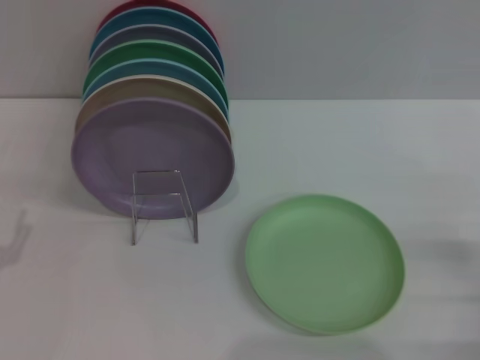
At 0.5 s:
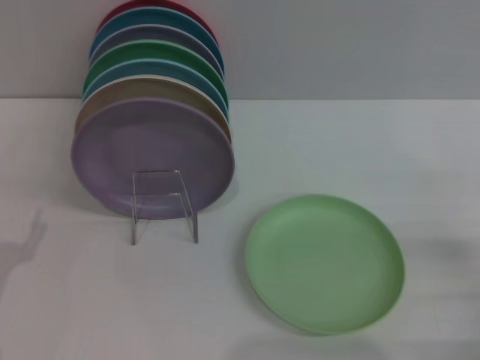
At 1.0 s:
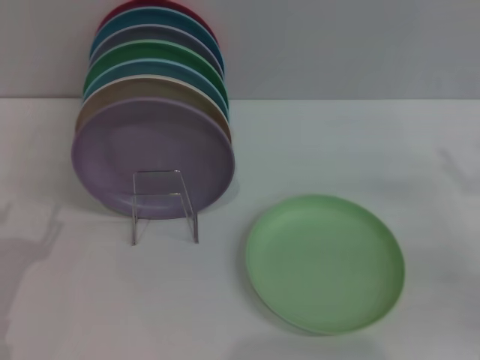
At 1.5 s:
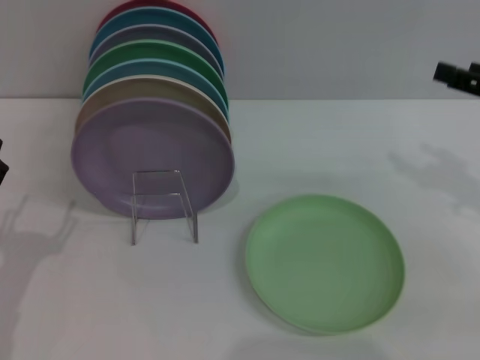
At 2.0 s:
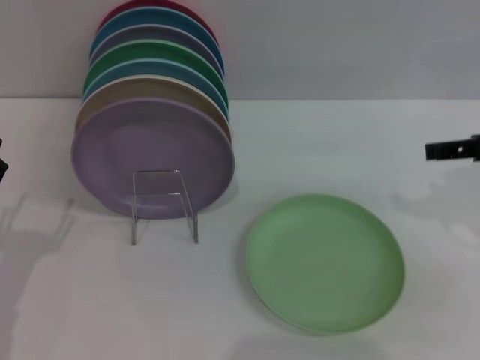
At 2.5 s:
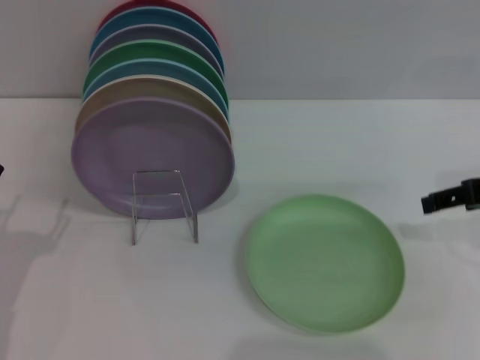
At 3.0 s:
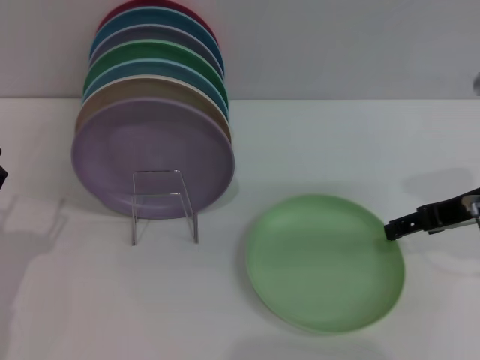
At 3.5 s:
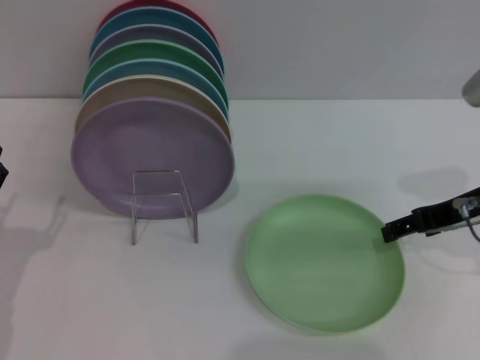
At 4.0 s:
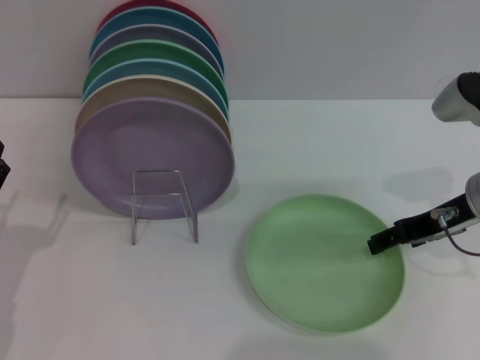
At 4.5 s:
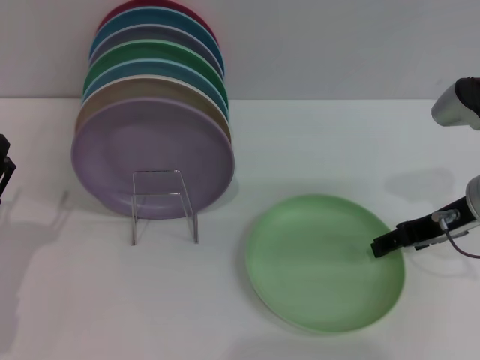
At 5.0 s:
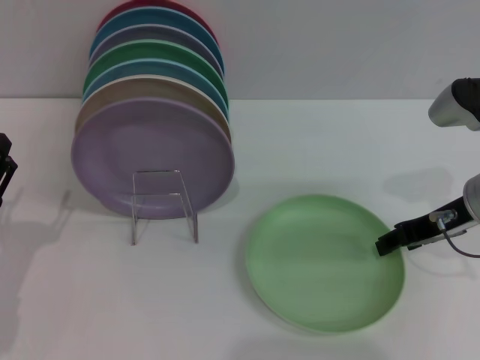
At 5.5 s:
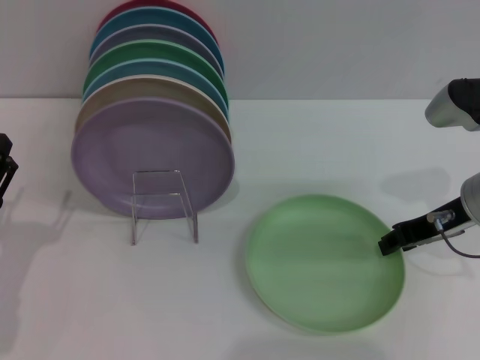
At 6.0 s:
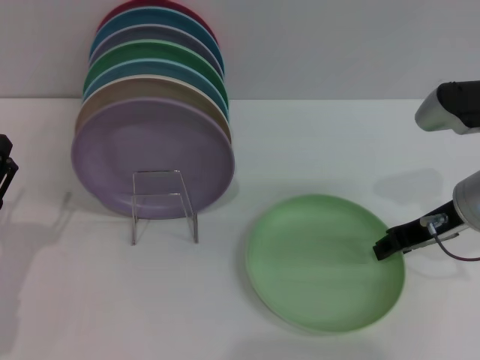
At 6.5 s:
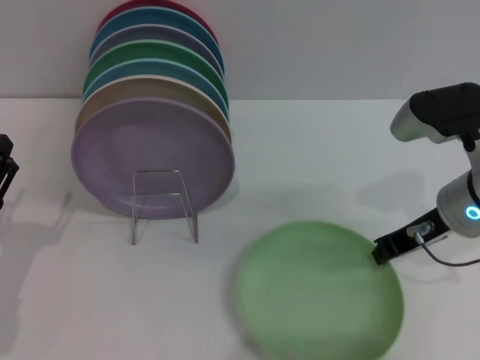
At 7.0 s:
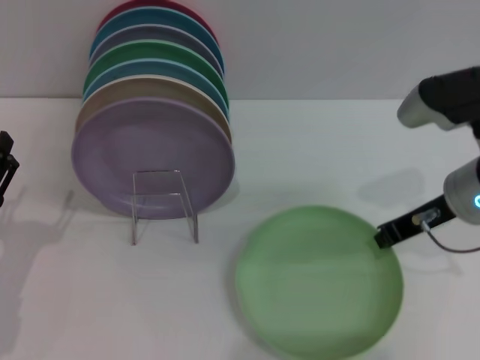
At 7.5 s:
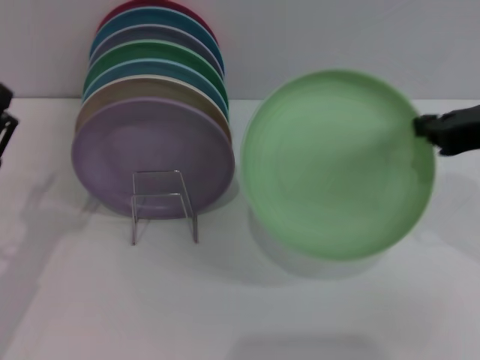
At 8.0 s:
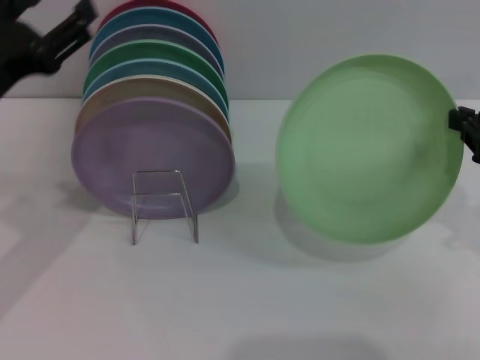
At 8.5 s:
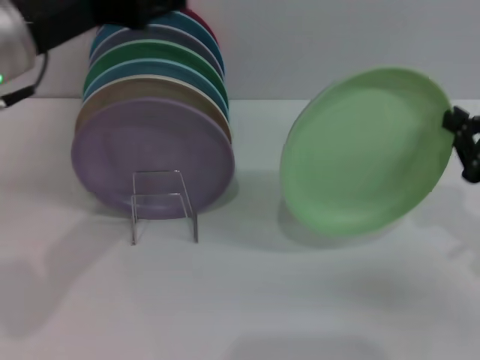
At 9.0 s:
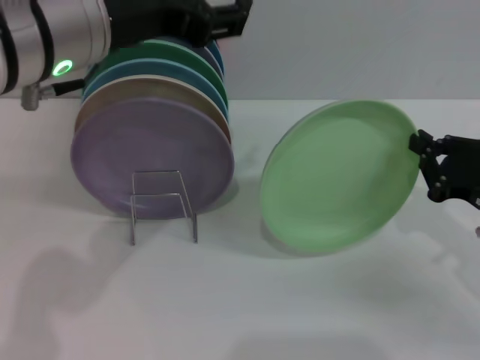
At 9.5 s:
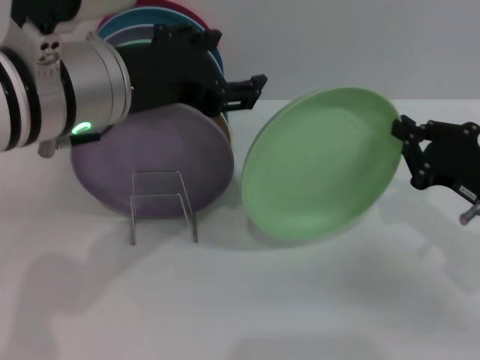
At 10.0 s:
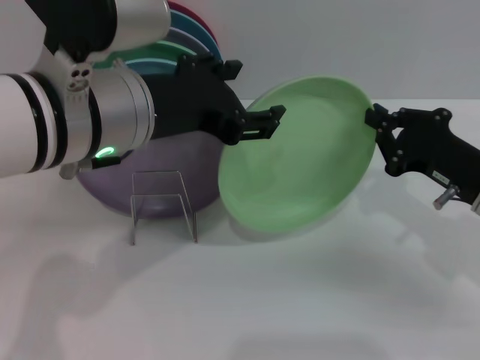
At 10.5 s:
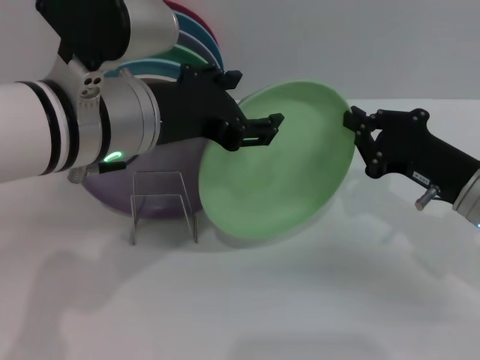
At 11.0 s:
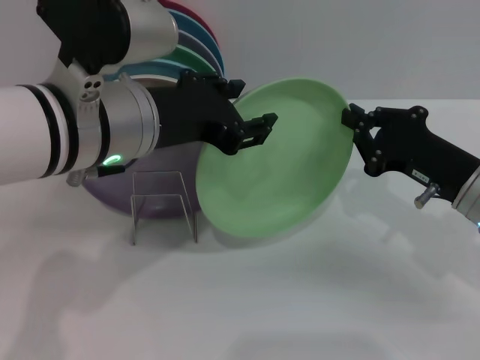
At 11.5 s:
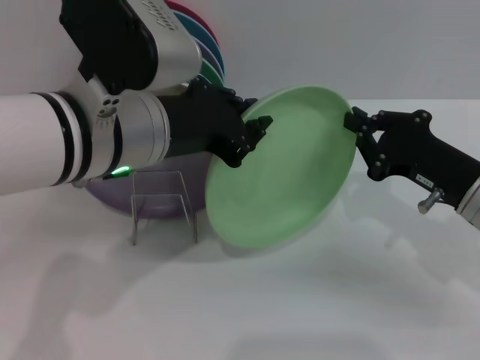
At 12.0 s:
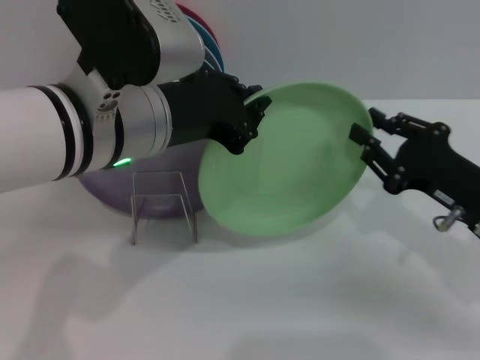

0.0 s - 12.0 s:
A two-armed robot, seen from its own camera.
Task of the whole recording: Grip the plate with one hand, pass it to the other, then set it on the shelf.
Step, 0.0 s - 7.0 s: Pick up the plate with the right gripper.
0.0 s - 2.0 s: The right gripper moves upward and forward, some 20 cm.
2.0 s - 4.0 s: The right gripper is displaced downward and to the left by roughly 10 cm.
4.0 s - 6.0 s: The right gripper closes.
6.0 s - 8.0 s: The right gripper moves backward, upward and to the right, some 10 cm, and closes up; the left gripper moves upward and forward, approximately 15 cm.
8.0 s - 10.0 s: The right gripper moves downward, some 10 cm, while the left gripper travels to the right and upward by some 15 cm.
10.0 s - 12.0 s: The left gripper closes its fingers.

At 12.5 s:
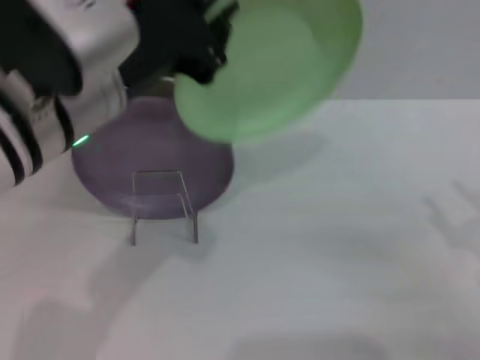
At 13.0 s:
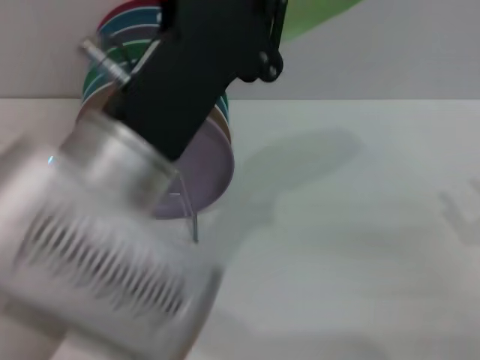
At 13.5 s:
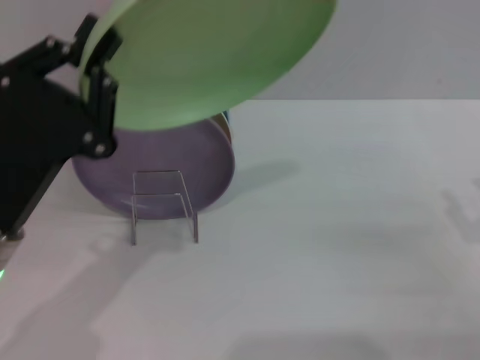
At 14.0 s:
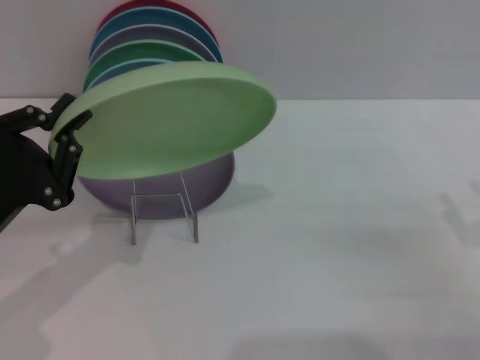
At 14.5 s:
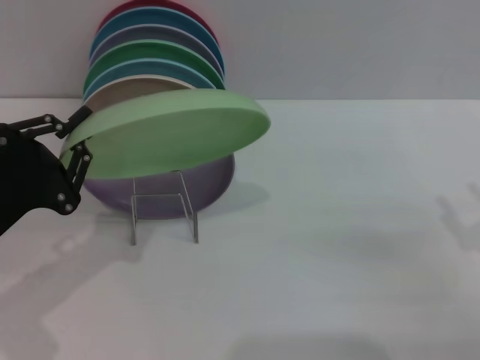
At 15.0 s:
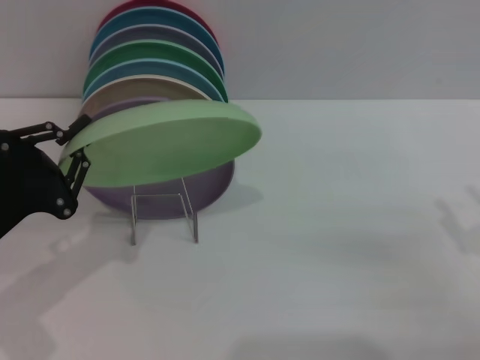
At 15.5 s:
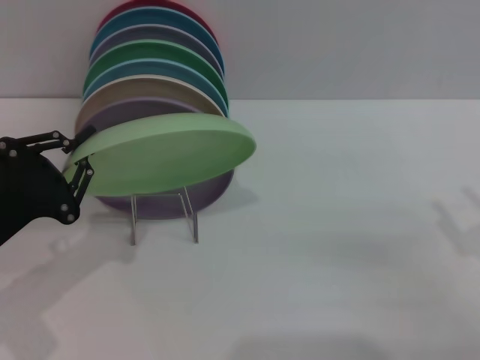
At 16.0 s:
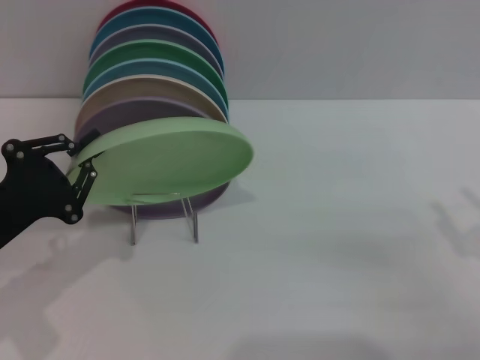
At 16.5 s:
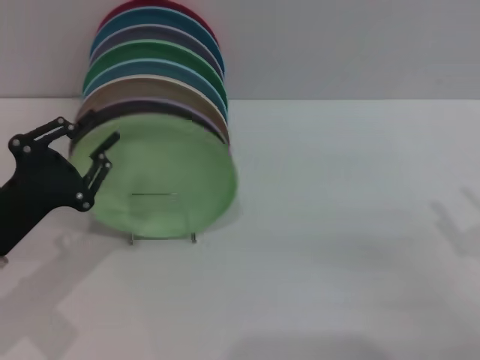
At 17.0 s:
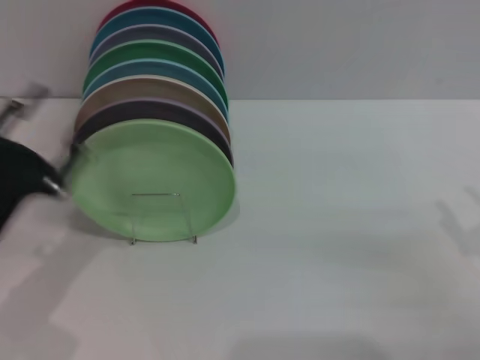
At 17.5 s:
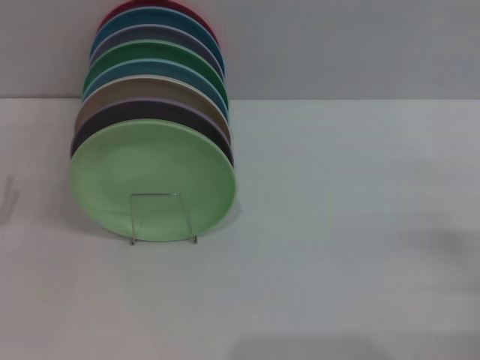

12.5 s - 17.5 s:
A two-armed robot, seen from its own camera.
Task of the whole recording: Grip the plate with one hand, pass it to the other, then set it on the shelf.
Step, 12.5 s - 16.5 s: Place the plate on the shelf with the left gripper.
12.5 s - 15.0 s: The left gripper heads downward and to the left, covering about 20 cm.
15.0 s - 17.5 s: The left gripper moves to the left, some 5 cm, and opens.

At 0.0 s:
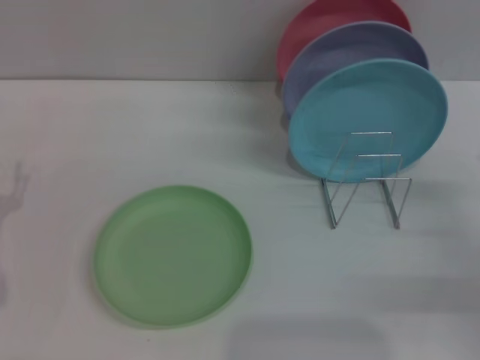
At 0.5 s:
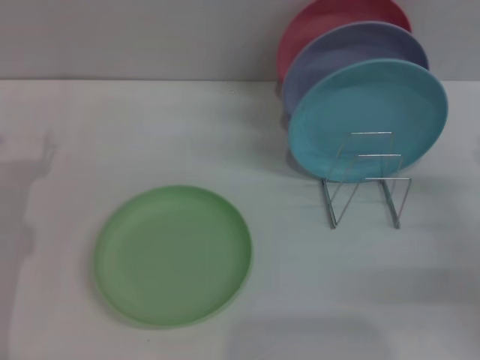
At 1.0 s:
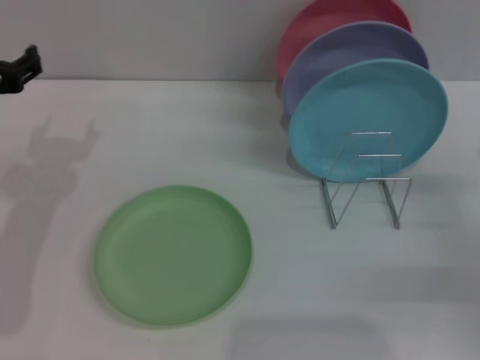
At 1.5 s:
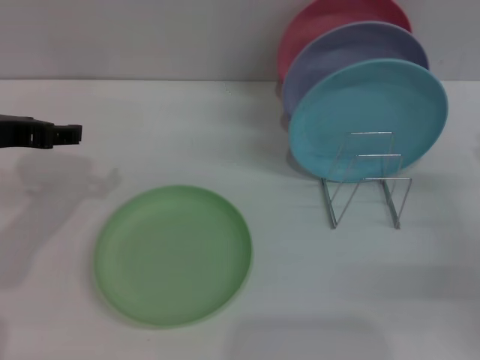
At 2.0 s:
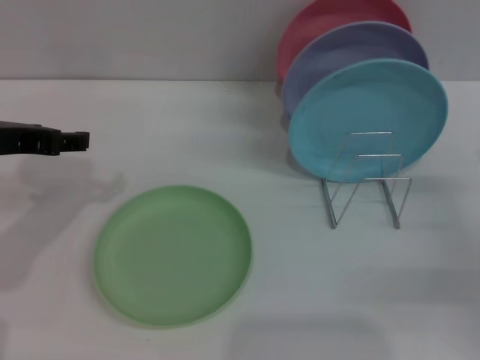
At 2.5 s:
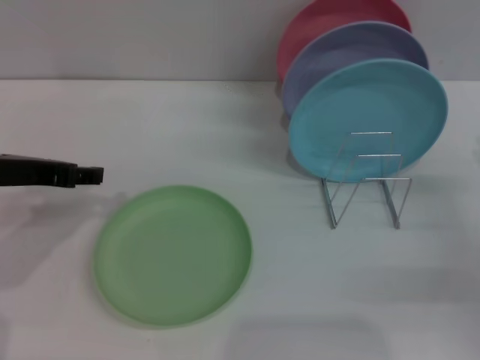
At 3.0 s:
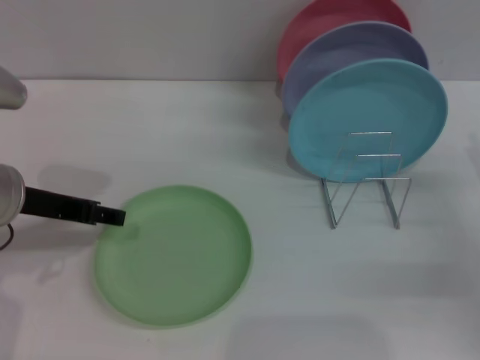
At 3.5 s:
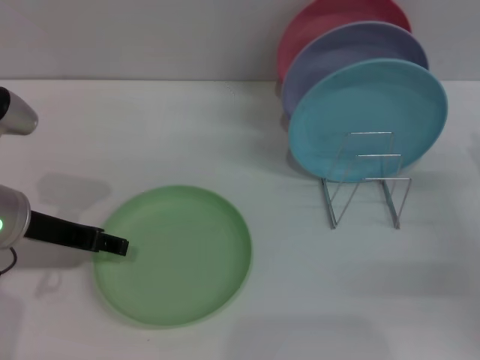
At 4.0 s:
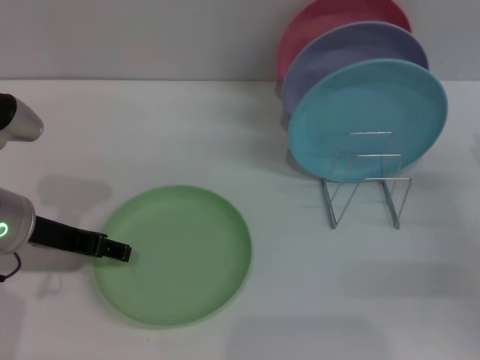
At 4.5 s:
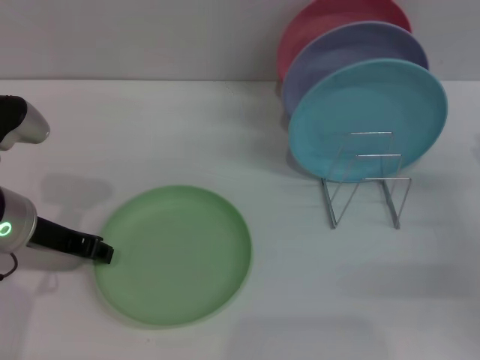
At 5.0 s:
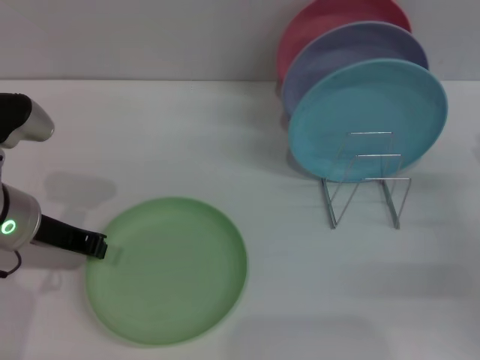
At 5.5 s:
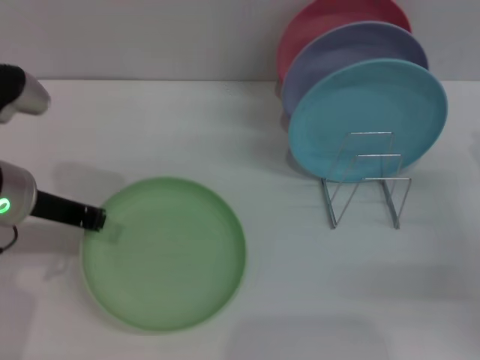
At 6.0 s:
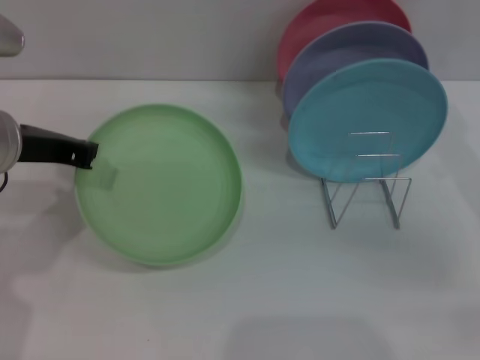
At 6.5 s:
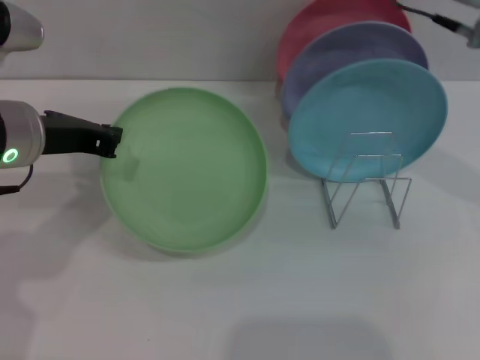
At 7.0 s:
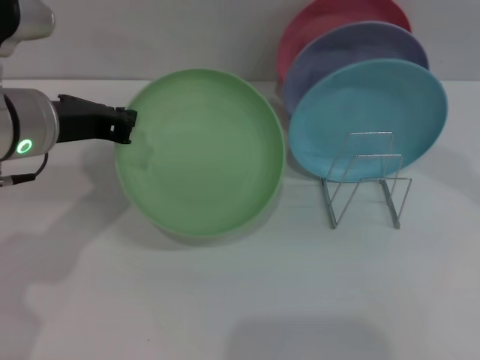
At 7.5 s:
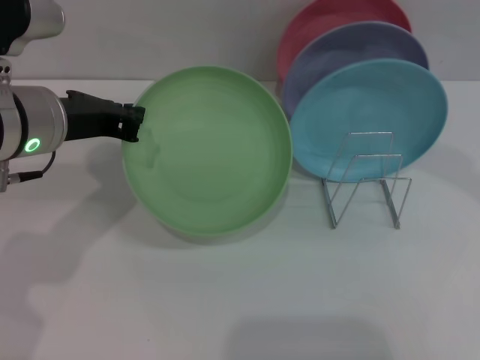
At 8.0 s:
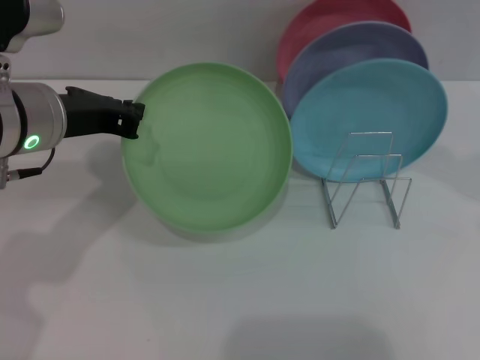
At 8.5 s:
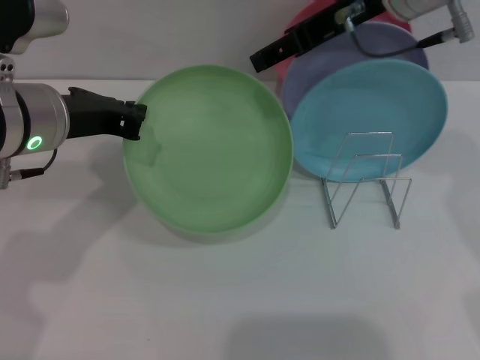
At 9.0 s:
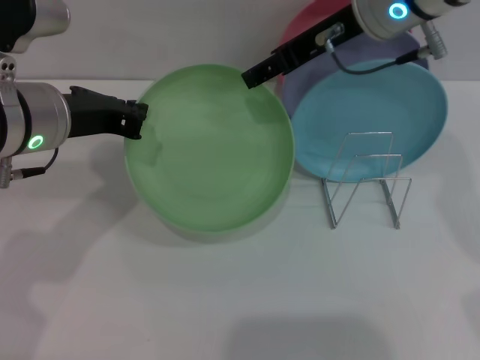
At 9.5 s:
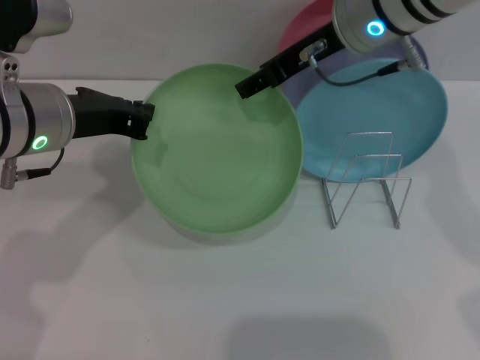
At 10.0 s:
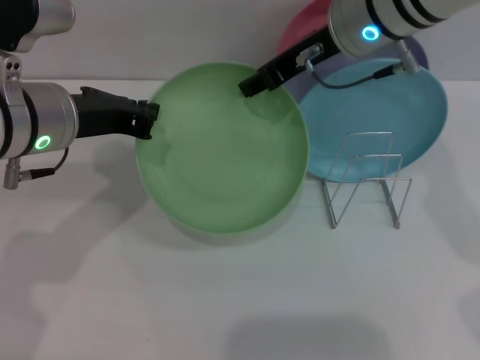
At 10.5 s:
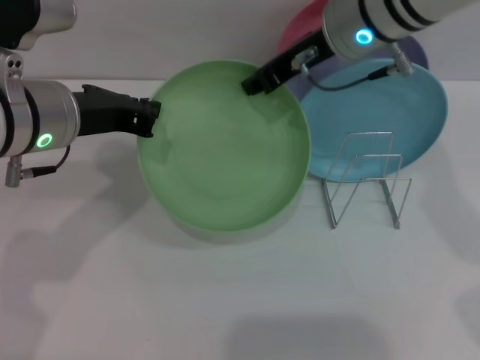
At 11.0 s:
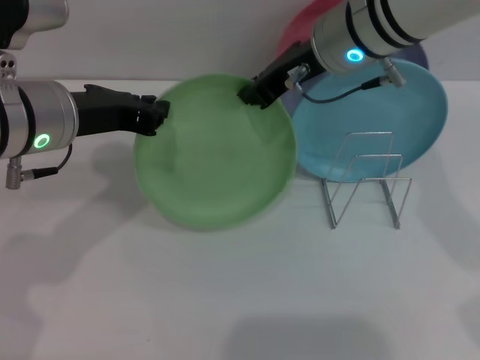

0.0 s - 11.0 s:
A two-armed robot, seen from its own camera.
Task of the whole recording: Grip the plate with one hand, pass it to the other, then set it on the shelf.
Step, 0.0 s - 6.0 s: Pick up the plate with the left gripper.
0.0 s - 2.0 s: The left gripper travels upward and forward by some 15 cm.
2.0 s - 3.5 s: The left gripper heads downward, covering some 5 cm.
3.5 s - 5.5 s: The left gripper closes up.
5.5 s - 7.5 s: The right gripper moves upward and to the left, approximately 30 cm. The left gripper shifts by roughly 5 cm.
7.5 s - 9.0 s: The right gripper is displaced downward and to the left by some 10 cm.
9.0 s - 11.0 s: The right gripper closes up.
